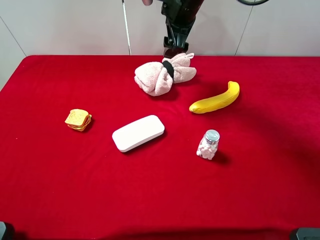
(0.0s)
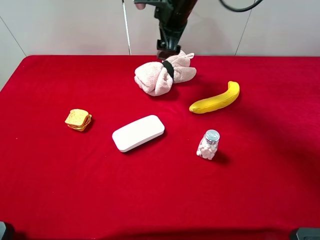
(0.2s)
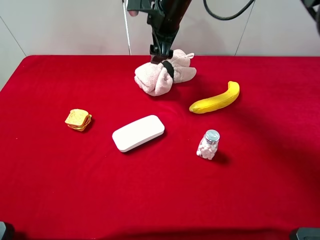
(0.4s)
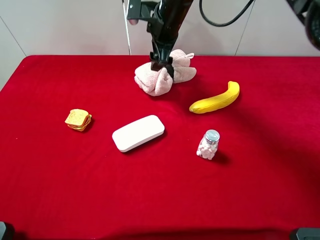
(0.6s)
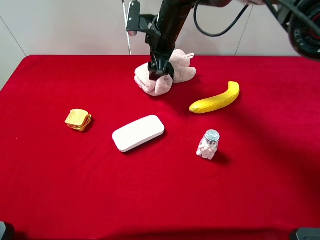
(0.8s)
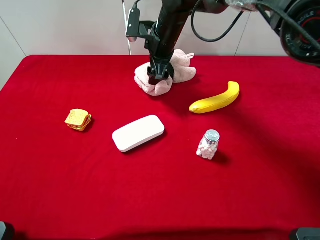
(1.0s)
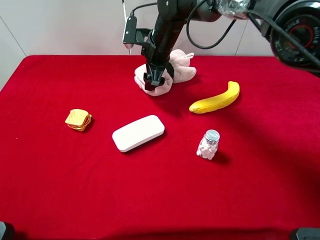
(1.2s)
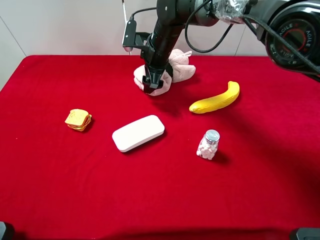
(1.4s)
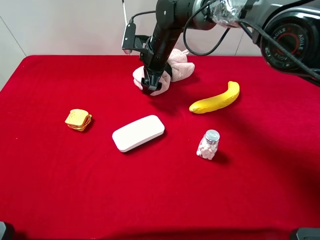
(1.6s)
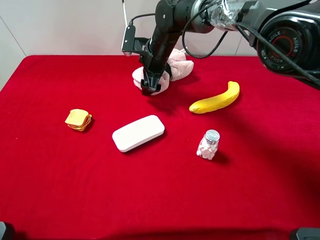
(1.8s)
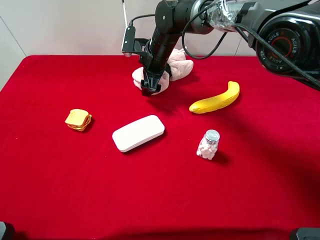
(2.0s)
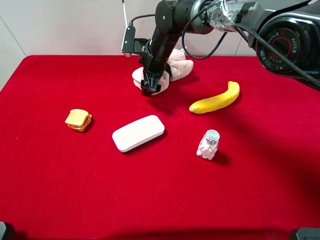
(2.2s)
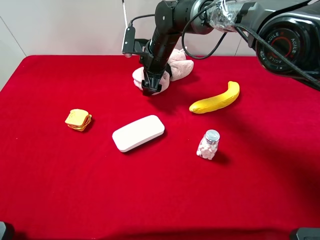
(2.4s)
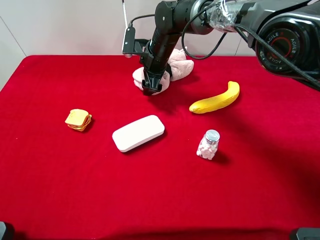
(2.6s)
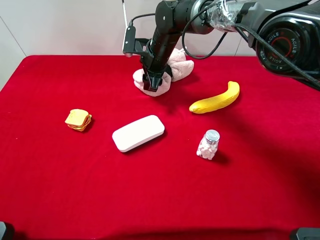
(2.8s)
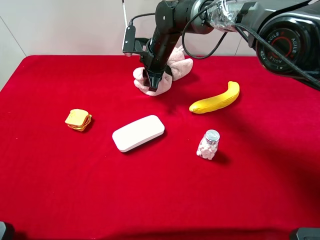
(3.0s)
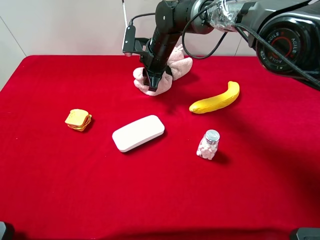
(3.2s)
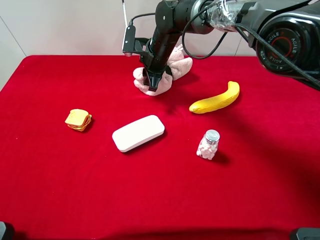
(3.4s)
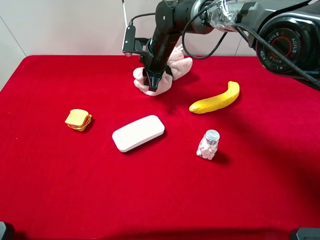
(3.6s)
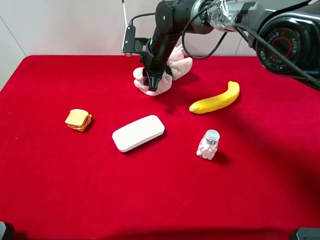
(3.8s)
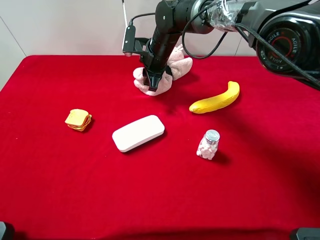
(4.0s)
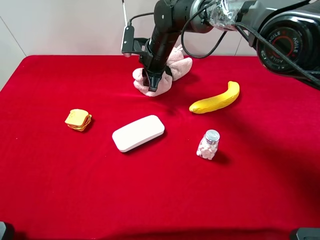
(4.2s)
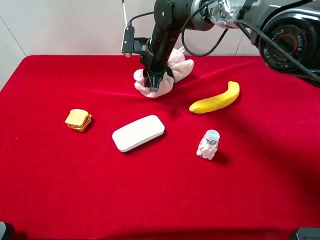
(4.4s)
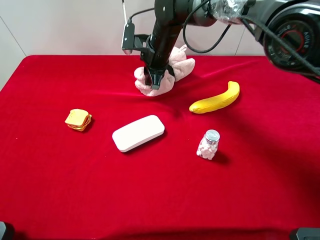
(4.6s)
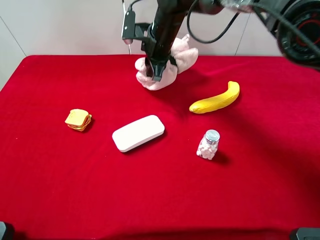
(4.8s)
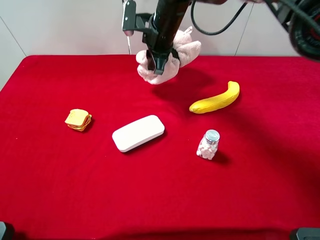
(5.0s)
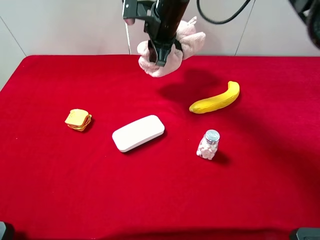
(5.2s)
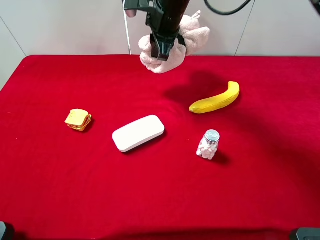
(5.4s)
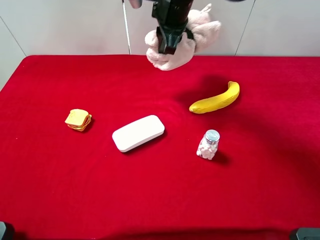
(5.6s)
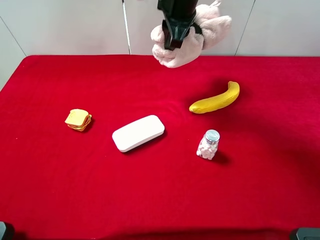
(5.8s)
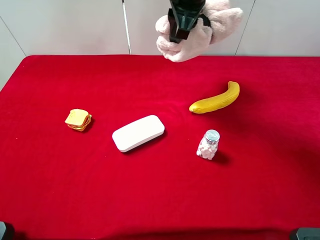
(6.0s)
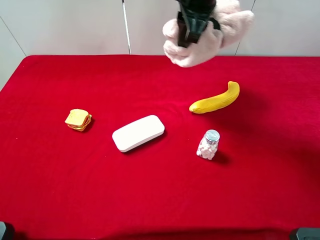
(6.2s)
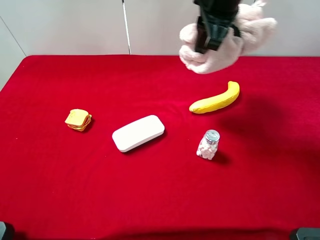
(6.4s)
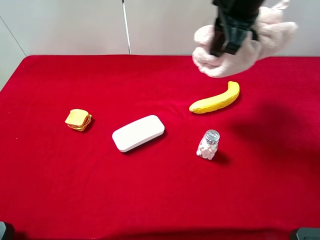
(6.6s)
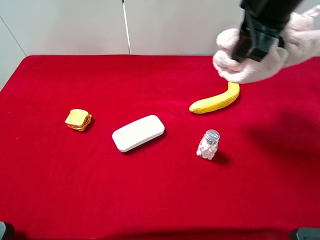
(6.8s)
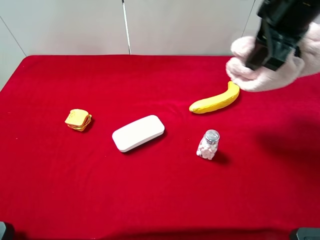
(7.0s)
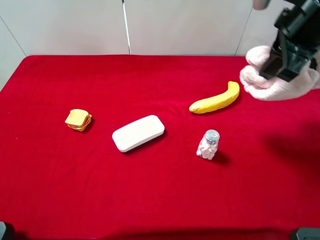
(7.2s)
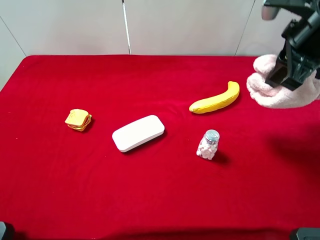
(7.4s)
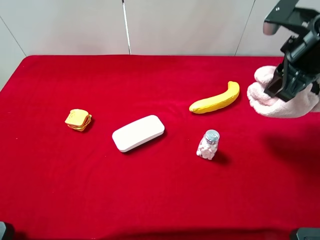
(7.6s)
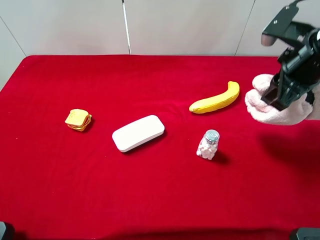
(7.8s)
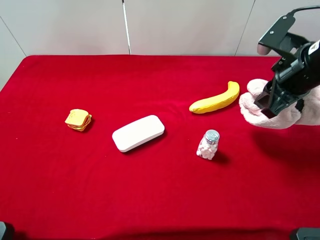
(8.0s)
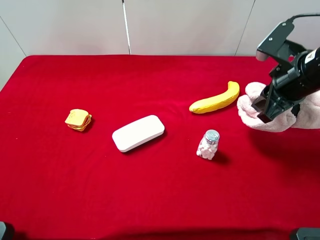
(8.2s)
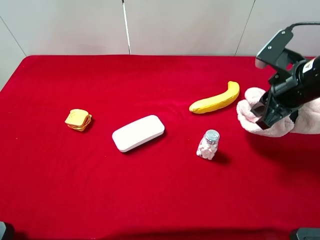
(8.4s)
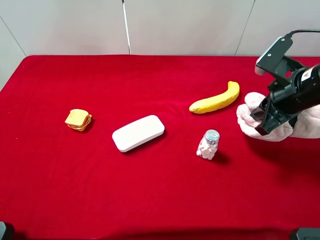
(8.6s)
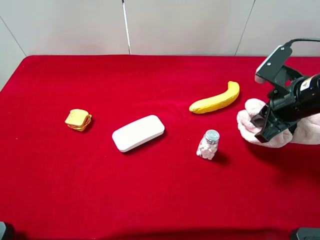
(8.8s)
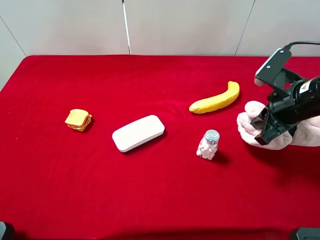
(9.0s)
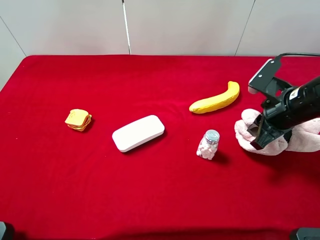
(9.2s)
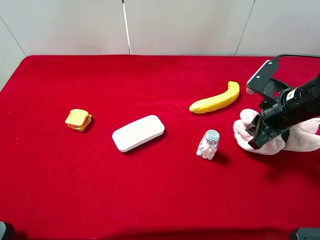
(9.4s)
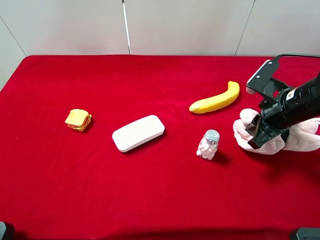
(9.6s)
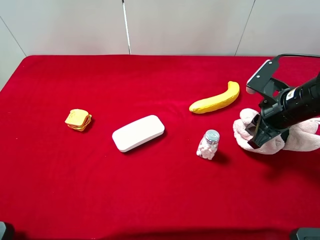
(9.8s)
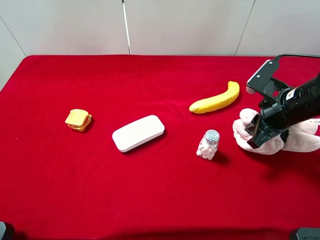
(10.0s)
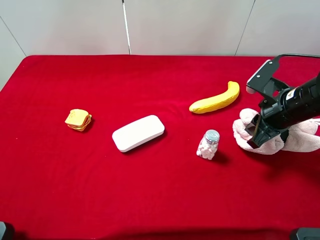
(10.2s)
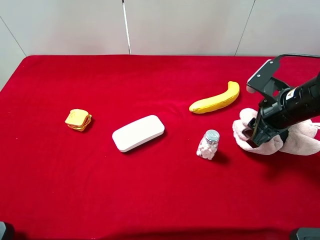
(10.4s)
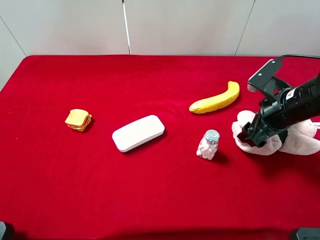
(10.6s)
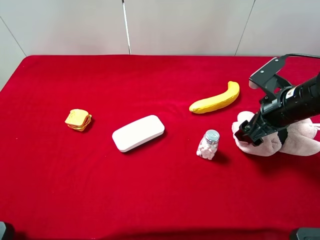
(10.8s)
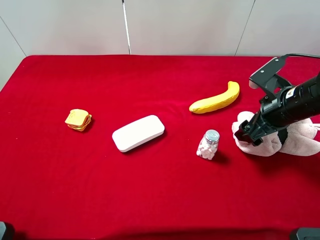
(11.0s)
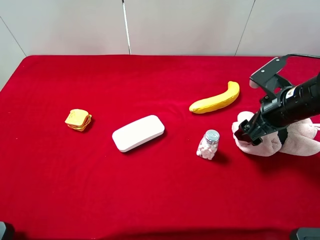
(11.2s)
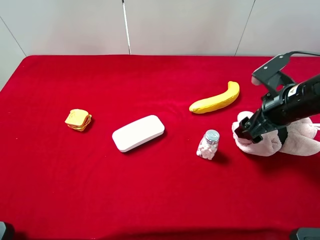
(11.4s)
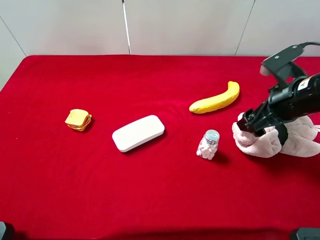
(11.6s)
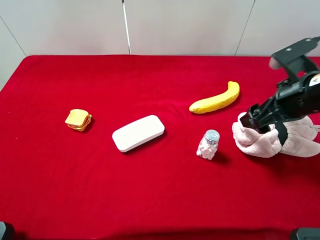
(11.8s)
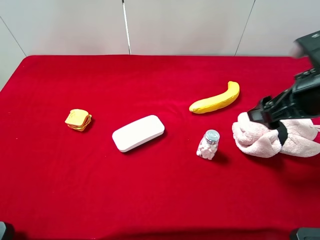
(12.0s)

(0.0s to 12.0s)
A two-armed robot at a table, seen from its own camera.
Task of the whole recording: the gripper move the object.
Step, 0.0s - 3.0s: Grasp the pink towel with the right gripper.
0.0s - 1.6s: The right gripper goes approximately 10 cm downward.
1.6s - 3.0s: The right gripper closes its fingers.
3.0s - 4.4s: There are only small adjustments of the grippers.
4.4s - 6.0s: The right gripper is displaced upward by approximately 15 cm.
6.0s - 7.6s: The right gripper is displaced to the right and backward by approximately 20 cm.
7.6s - 9.0s: The right gripper goes some 10 cm downward.
9.0s - 10.4s: The right gripper opens.
10.4s - 12.0s: The right gripper moves upward, roughly 10 cm, and opens.

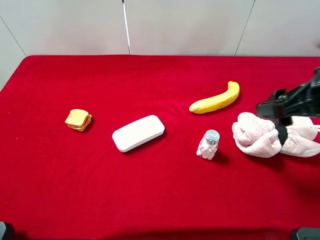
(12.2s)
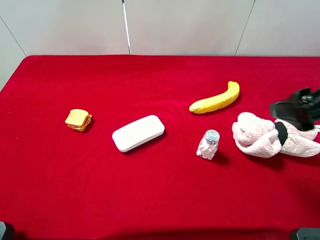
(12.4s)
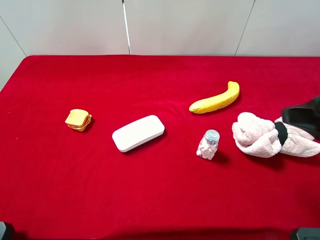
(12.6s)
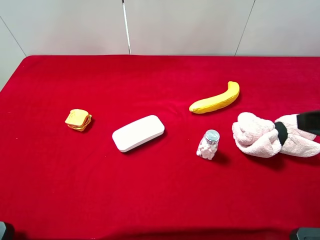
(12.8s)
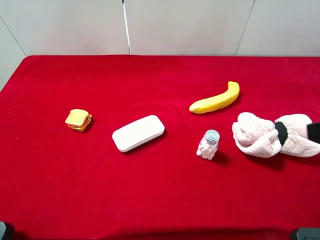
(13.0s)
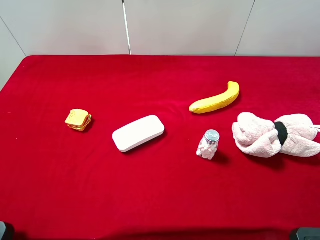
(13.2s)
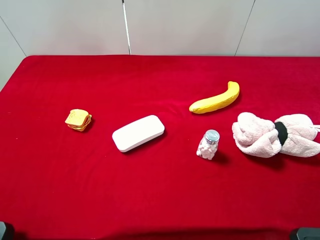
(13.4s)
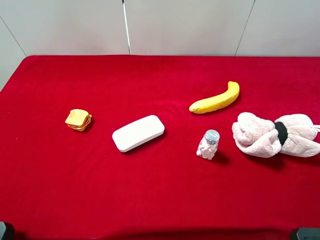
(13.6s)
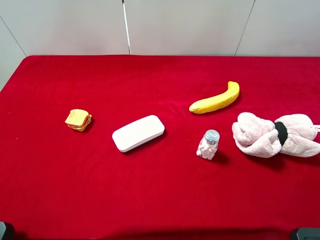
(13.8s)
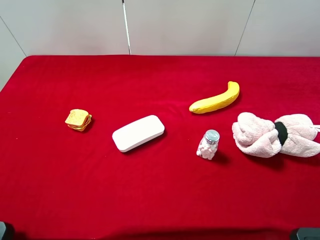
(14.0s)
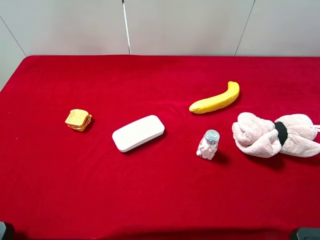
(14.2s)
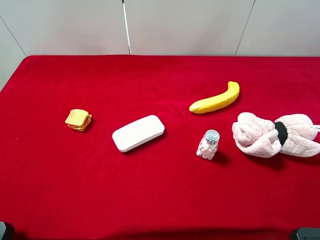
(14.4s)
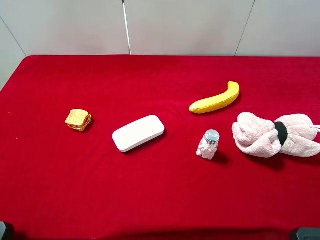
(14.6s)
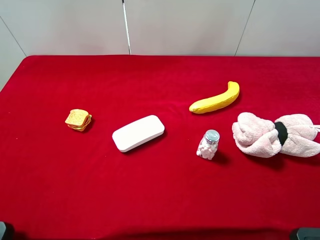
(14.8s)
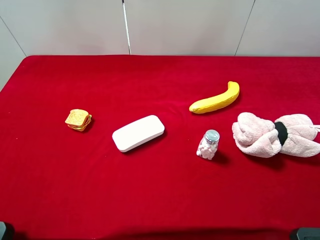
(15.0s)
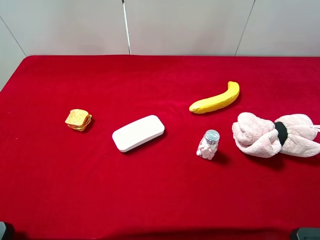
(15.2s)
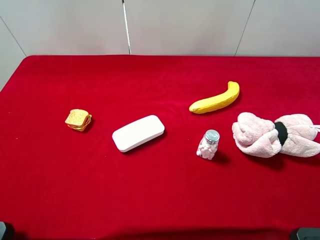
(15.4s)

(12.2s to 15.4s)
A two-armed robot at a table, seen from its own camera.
Task of the whole recording: the gripper move the object.
12.2s - 13.8s: The right gripper moves backward, roughly 15 cm.
